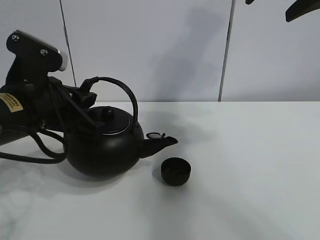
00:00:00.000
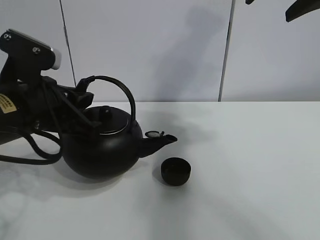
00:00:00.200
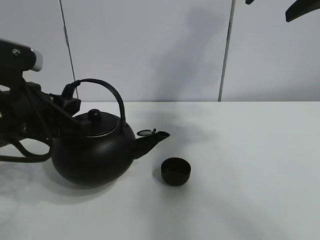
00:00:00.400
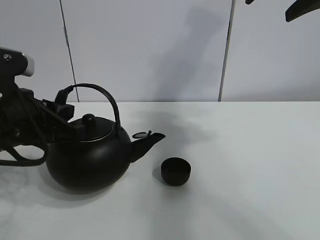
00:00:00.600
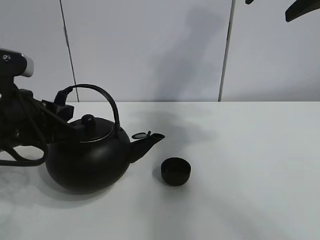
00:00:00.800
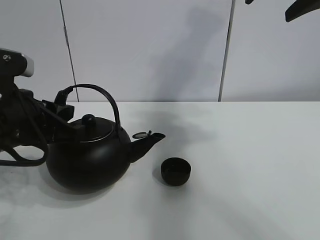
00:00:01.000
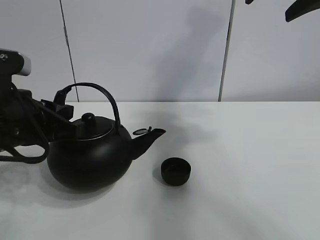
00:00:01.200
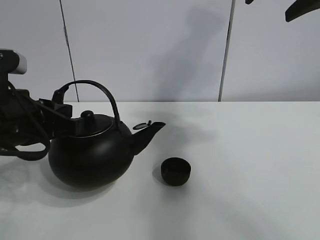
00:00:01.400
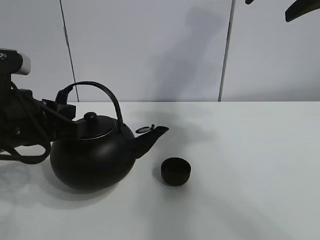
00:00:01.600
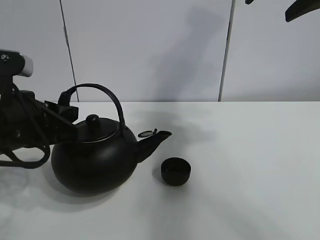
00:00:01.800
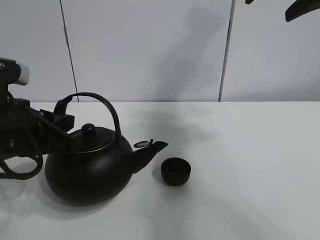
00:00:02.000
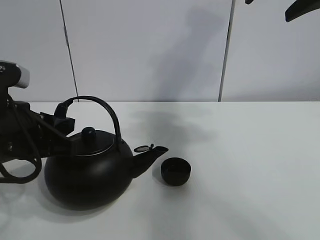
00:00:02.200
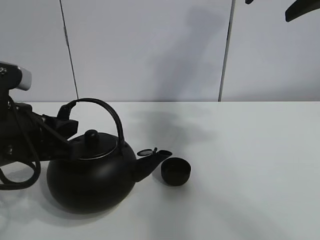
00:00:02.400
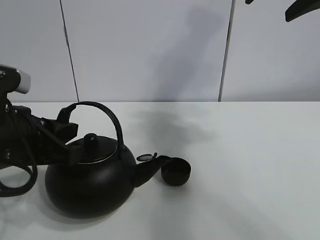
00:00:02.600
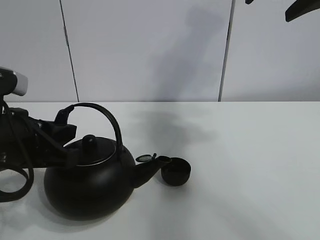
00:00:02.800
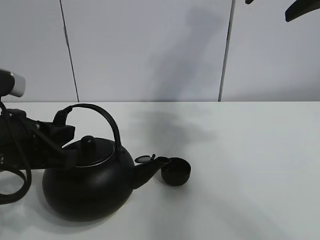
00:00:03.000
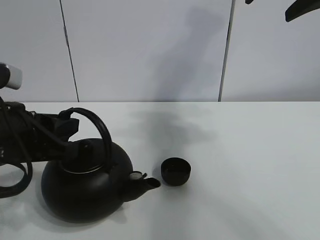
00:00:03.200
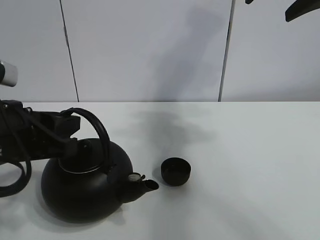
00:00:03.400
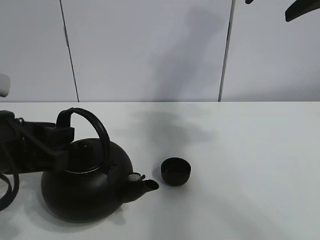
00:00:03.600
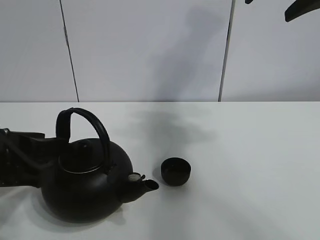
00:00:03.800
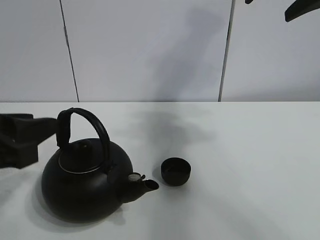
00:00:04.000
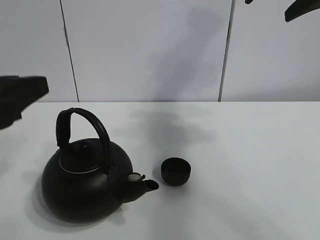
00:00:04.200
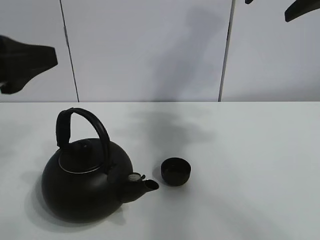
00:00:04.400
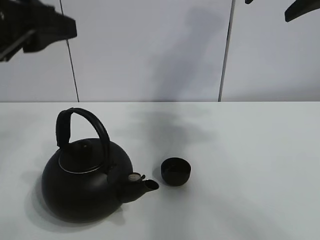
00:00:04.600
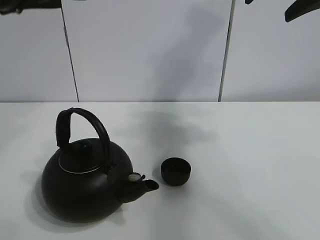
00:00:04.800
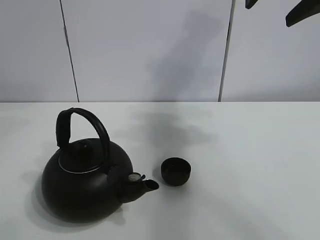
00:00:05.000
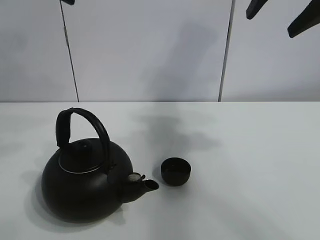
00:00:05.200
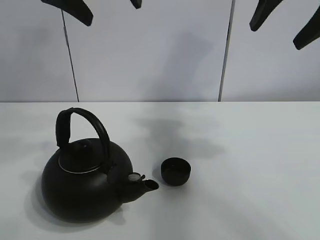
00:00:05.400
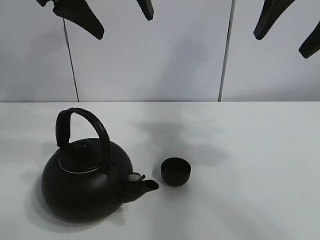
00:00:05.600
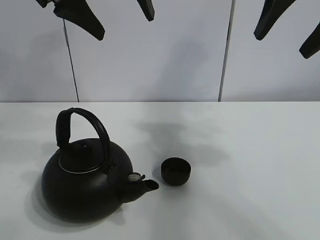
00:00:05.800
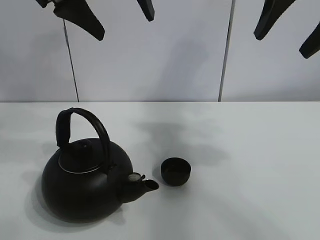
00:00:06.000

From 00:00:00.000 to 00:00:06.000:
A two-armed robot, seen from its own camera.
Task of the whole recording: pour tea into the teacup.
From 00:00:01.600 to 00:00:03.000: The grippers stay close to where they were, moving slightly.
From 00:00:03.000 to 00:00:04.400: The left gripper shifts some 10 cm upward, and opens up.
From 00:00:04.400 to 00:00:06.000: The left gripper goes roughly 20 cm forward, upward and to the right, and opens its fingers.
